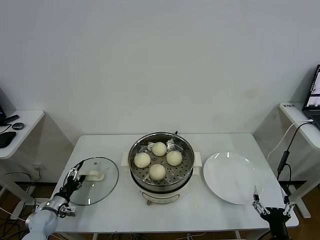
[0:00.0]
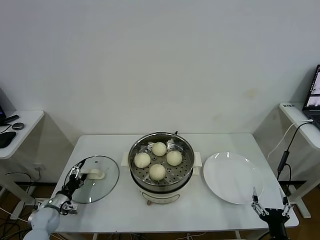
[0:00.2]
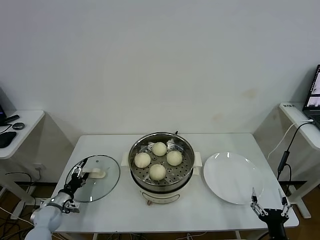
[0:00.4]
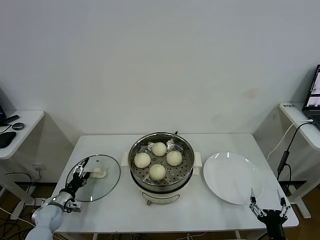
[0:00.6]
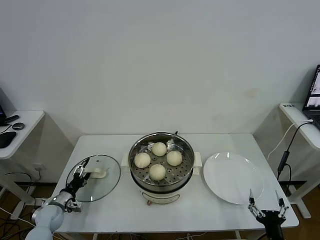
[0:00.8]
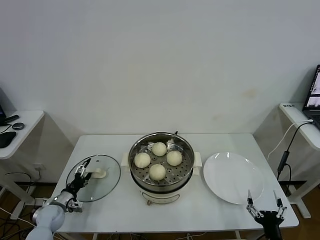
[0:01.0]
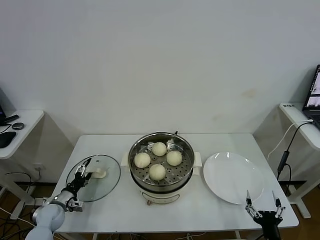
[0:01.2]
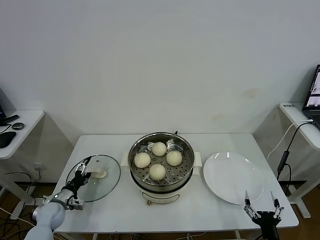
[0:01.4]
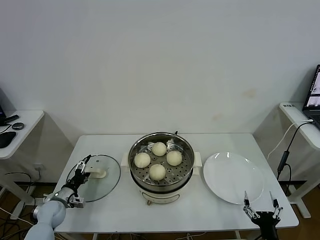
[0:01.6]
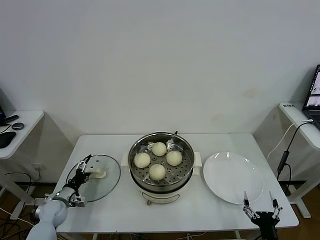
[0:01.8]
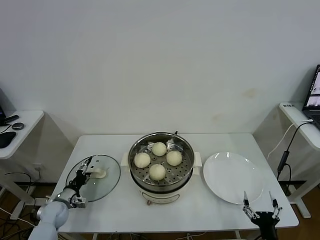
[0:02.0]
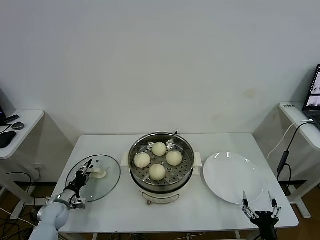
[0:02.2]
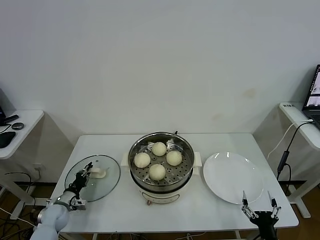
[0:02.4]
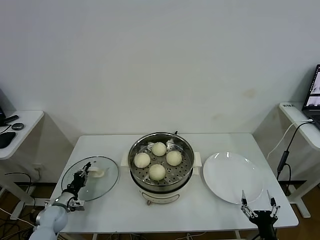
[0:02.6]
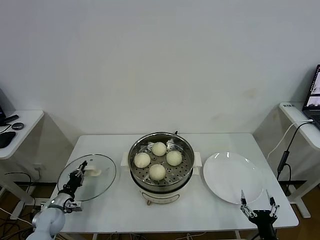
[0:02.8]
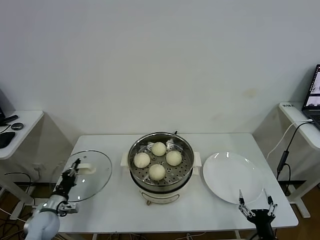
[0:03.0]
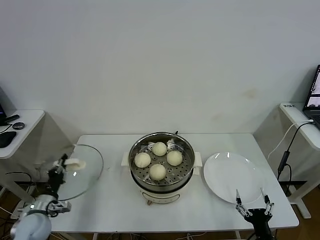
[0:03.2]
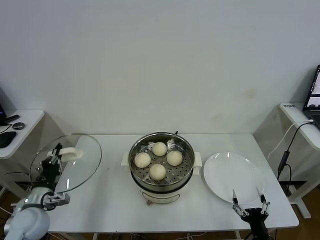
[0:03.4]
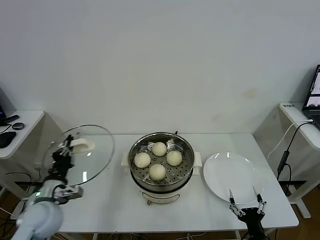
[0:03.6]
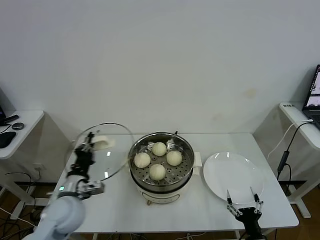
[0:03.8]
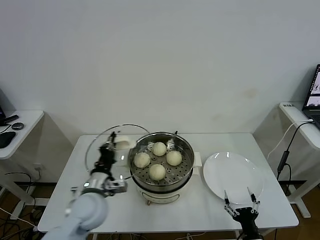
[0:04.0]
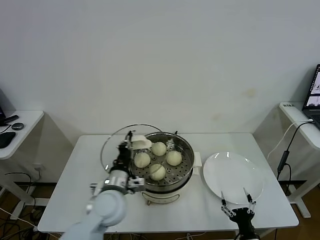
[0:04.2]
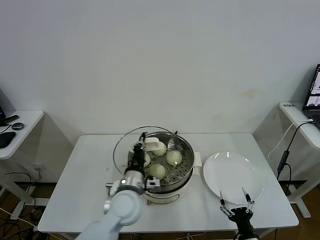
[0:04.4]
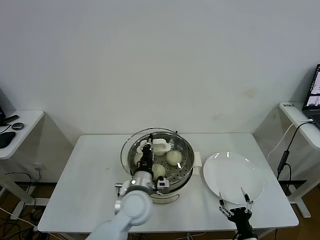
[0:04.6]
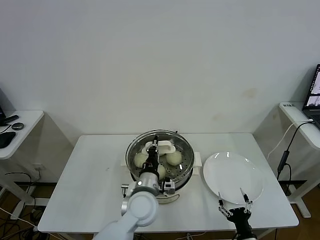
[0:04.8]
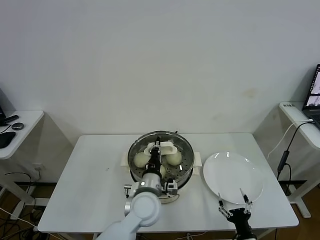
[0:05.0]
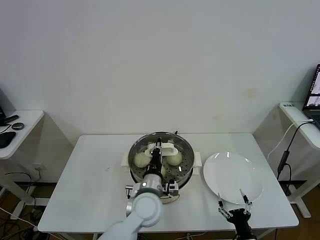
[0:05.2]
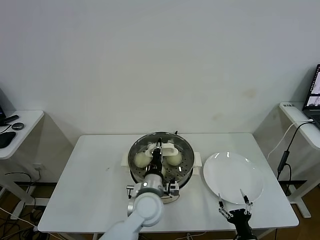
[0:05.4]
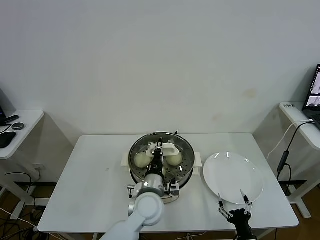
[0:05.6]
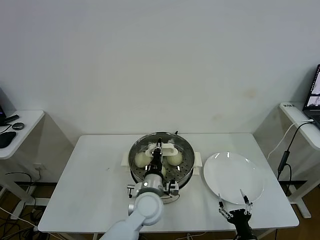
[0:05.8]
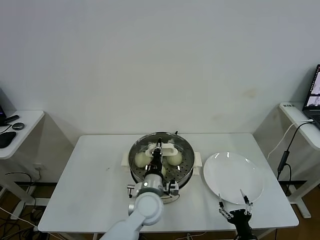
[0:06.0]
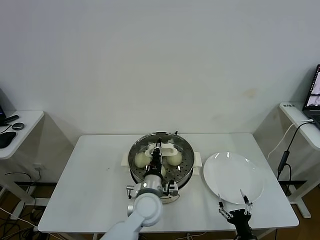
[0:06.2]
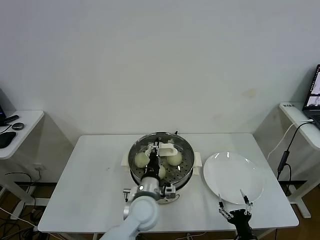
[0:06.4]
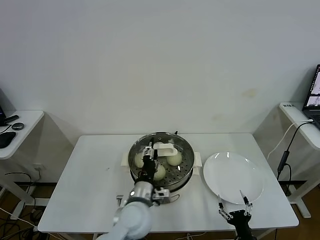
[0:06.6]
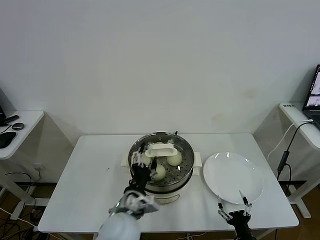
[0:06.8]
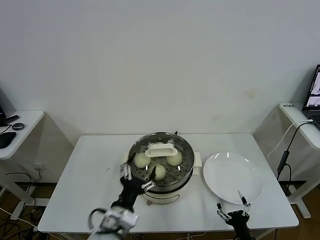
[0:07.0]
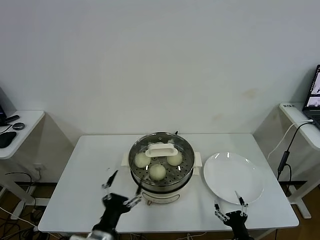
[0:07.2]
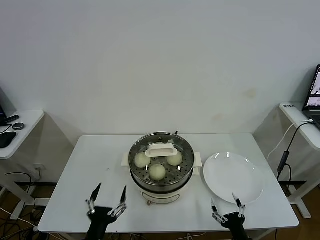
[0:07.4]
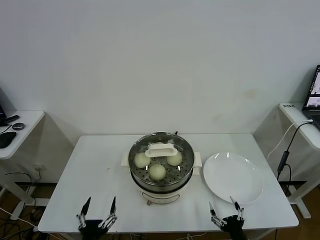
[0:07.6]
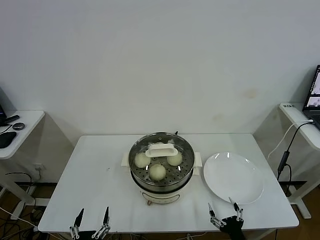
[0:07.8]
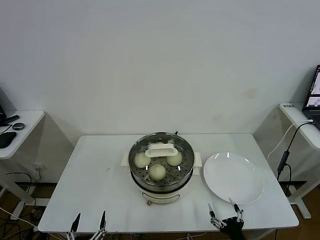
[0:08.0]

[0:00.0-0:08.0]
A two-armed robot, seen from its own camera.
Task of the whole recording: take steamed baozi put them in steamer.
Step, 0:00.0 to 0:02.6: Grasp the pot lid with left gripper.
Step, 0:02.8 to 0:06.8: Place the pot lid on the steamer with left gripper.
0:00.0 to 0:01.6: The grippers stay close to where they were, moving slightly.
0:01.6 to 0:03.2: The left gripper shifts about 10 cm upward and backward, and closes its fingers.
0:03.2 to 0:04.8: The right gripper ends up about 5 cm from where it was; the left gripper goes roughly 35 cm to the right.
0:04.8 to 0:06.4: The grippers make only small movements.
0:06.4 to 0:08.0: The left gripper heads backward and to the left, covering about 30 cm, and opens up.

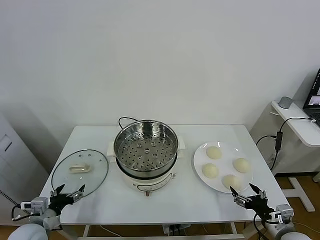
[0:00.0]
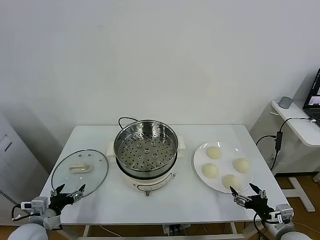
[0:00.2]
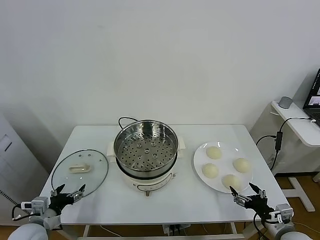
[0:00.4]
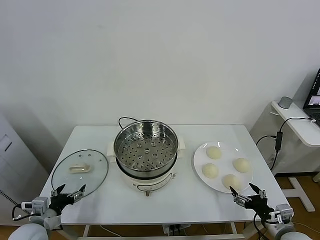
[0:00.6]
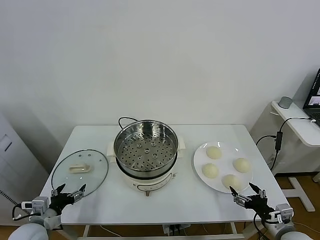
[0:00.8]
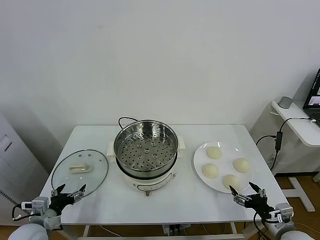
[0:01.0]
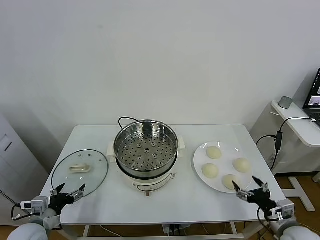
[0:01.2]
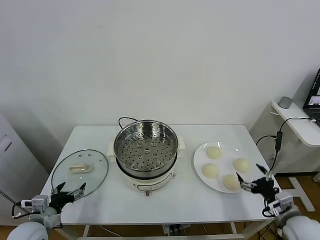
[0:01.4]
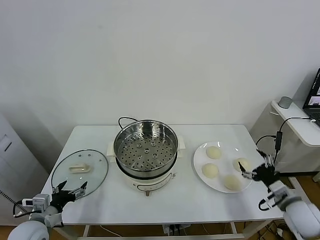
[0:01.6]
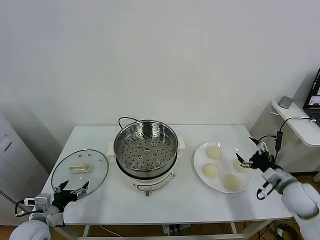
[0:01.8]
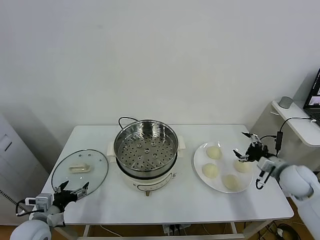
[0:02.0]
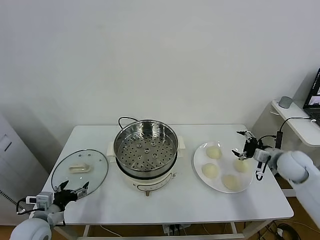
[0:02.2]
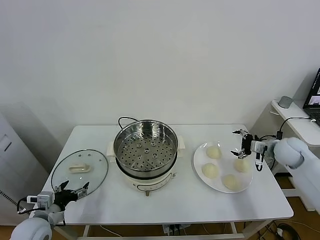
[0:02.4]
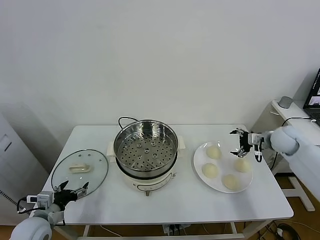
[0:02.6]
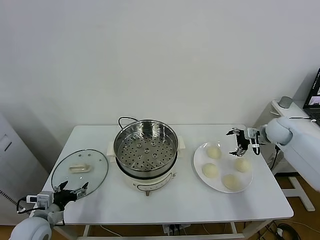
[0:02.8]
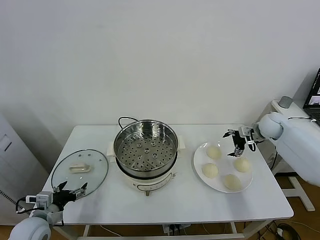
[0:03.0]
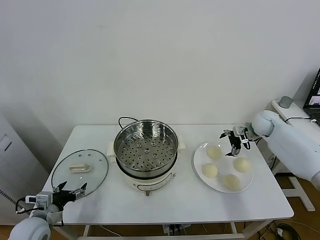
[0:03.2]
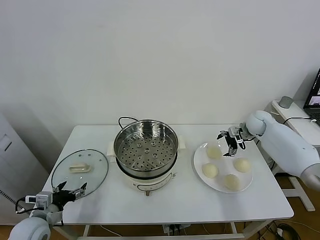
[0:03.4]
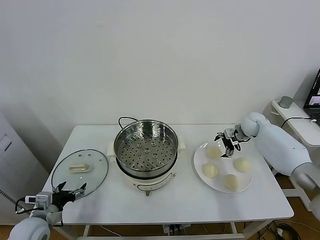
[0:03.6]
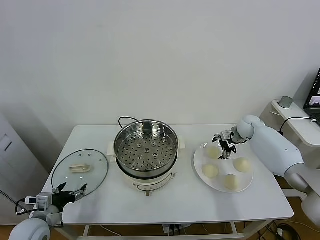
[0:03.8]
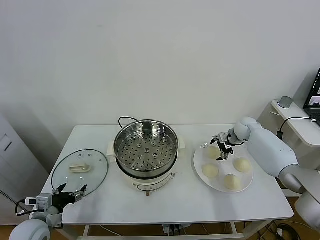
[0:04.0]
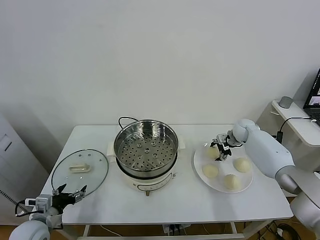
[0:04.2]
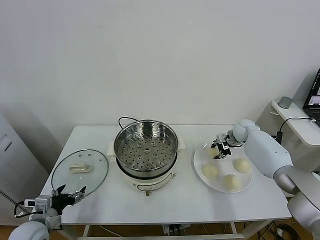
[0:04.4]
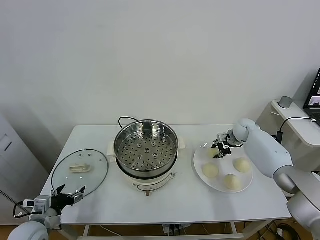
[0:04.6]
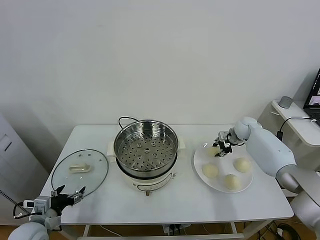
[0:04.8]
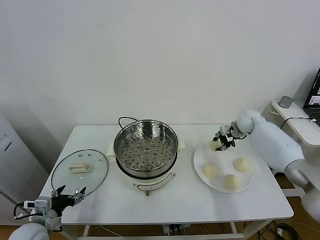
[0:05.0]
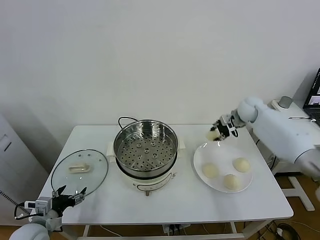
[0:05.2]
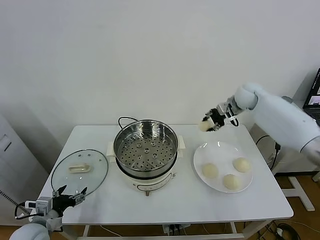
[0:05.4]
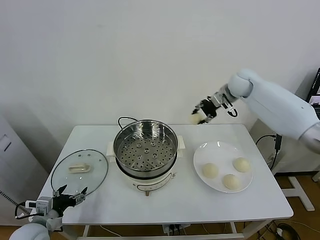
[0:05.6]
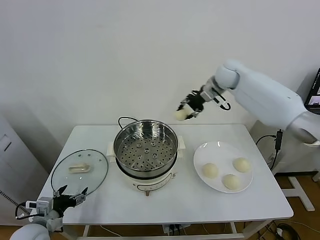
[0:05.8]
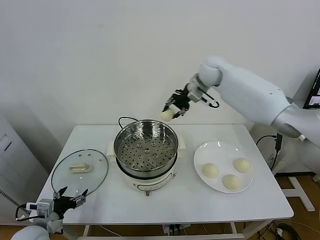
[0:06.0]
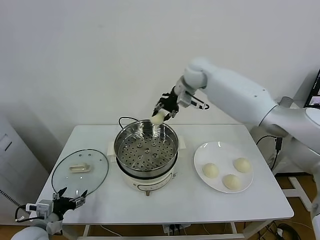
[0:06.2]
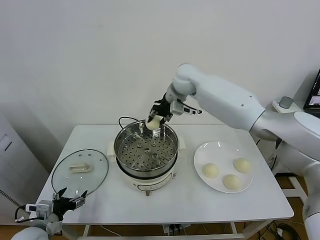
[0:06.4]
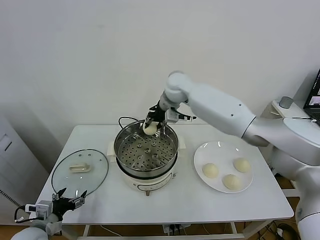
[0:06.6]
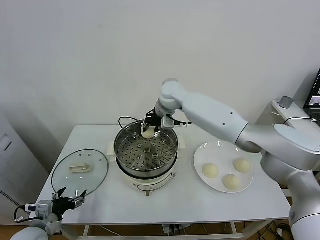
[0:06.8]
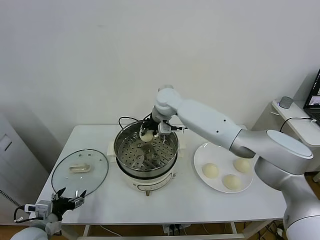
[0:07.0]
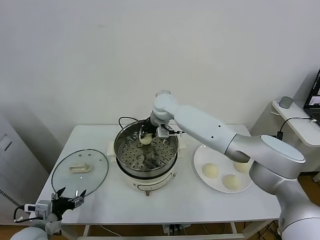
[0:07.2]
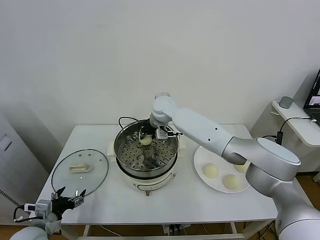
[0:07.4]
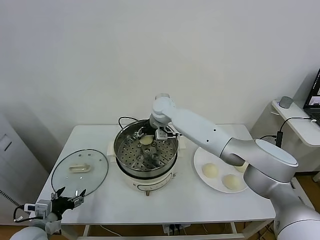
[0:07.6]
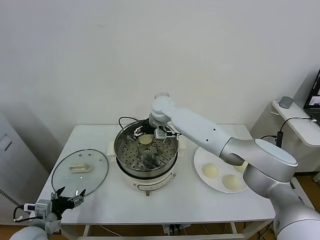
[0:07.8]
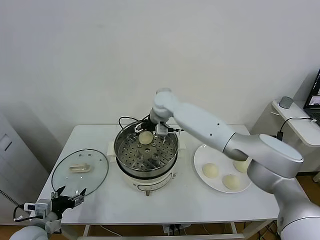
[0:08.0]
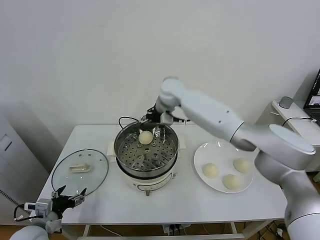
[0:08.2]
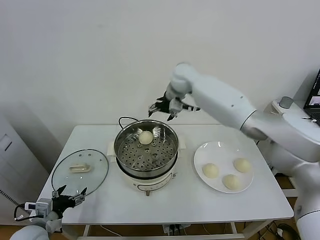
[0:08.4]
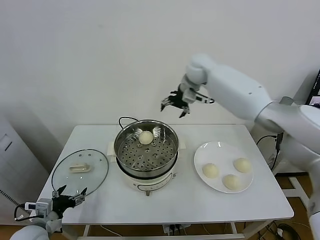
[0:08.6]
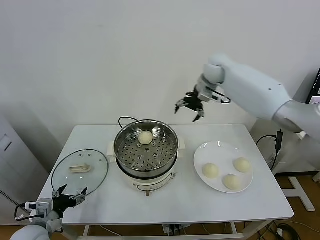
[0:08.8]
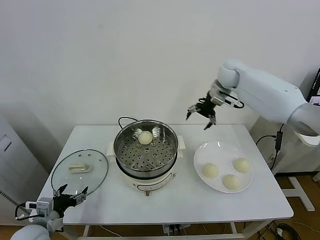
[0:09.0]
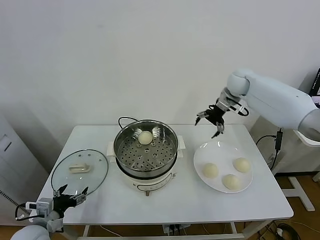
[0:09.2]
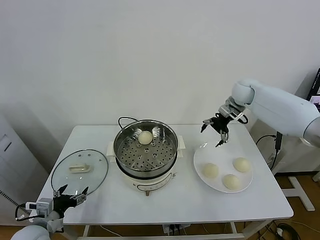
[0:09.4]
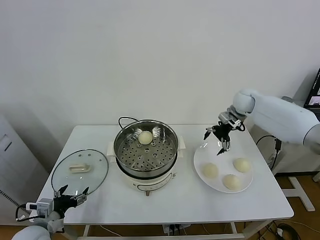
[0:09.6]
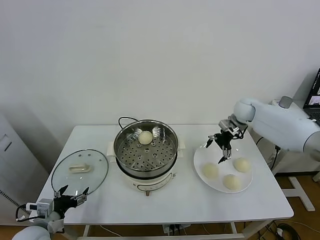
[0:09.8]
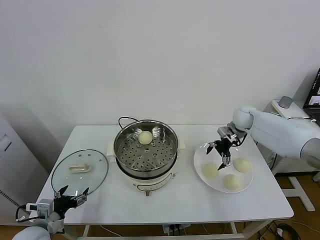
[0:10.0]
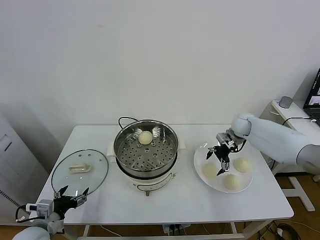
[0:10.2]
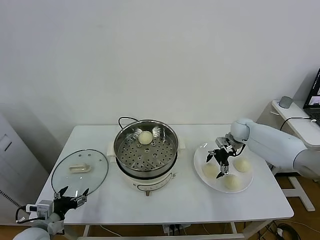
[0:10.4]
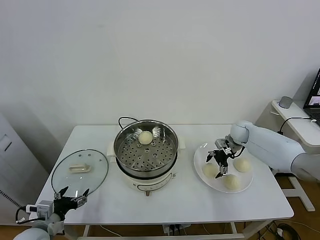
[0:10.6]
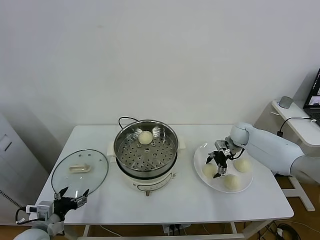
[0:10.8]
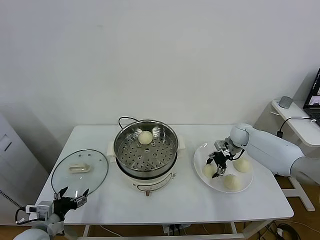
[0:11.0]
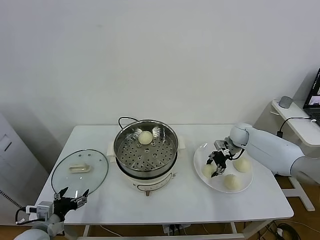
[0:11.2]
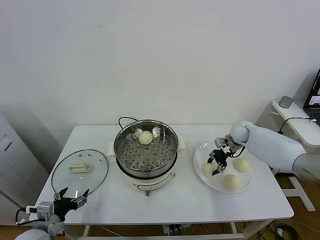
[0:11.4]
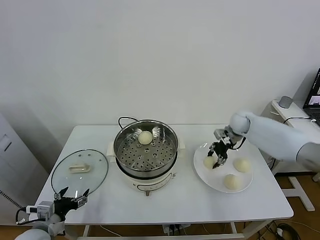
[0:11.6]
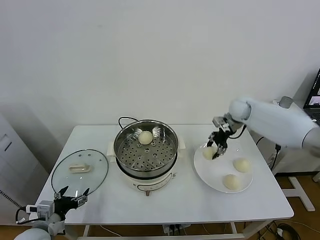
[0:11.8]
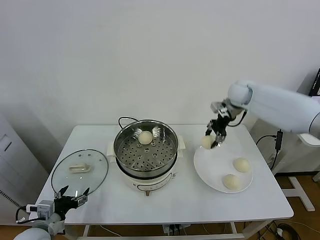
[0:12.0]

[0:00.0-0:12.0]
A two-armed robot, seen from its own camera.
Task of the whole recording: take steamed baozi put them in steamer.
Step, 0:00.0 to 0:04.6: Grasp the baozi in the plate with right gripper.
Step, 0:04.8 to 0:07.8: Place the baozi on the steamer with right gripper.
Step, 0:08.0 to 0:11.2: Grasp the baozi in the plate with right gripper.
0:01.6 to 0:03.0: The right gripper goes about 25 cm forward.
0:03.0 to 0:04.4: The right gripper goes about 10 cm downward, and closes its fingers.
0:04.4 to 0:06.0: The right gripper is displaced upward and to the left by approximately 35 cm.
0:06.0 to 0:07.6: The right gripper shifts about 20 cm downward and to the left, and opens up.
0:07.6 to 0:09.0: The right gripper moves to the right, approximately 25 cm.
0:09.0 to 0:10.4: The right gripper heads downward, covering about 20 cm.
0:10.4 to 0:12.0: The right gripper shifts some 20 cm upward, and closes.

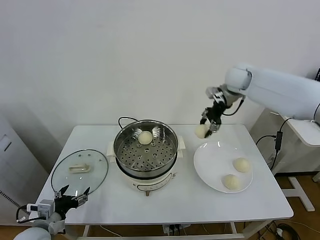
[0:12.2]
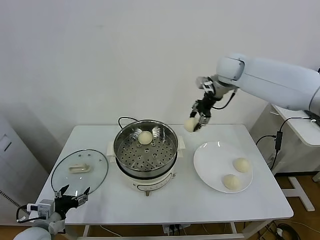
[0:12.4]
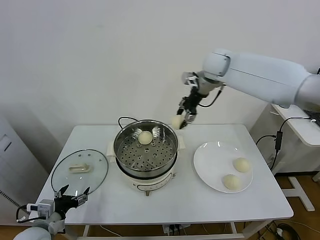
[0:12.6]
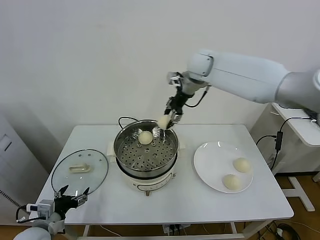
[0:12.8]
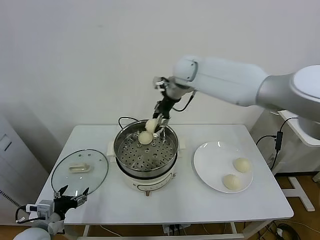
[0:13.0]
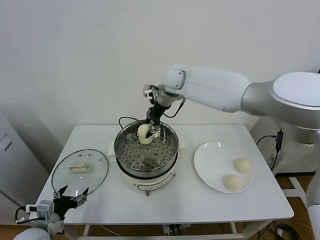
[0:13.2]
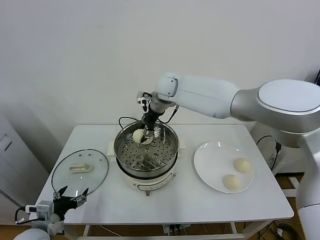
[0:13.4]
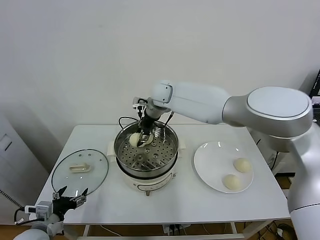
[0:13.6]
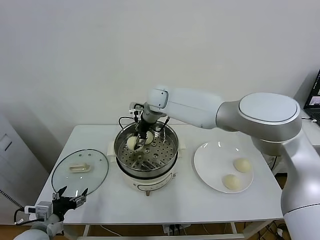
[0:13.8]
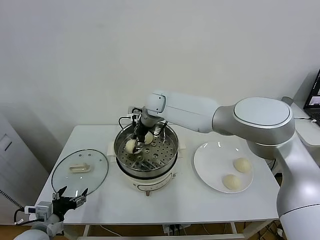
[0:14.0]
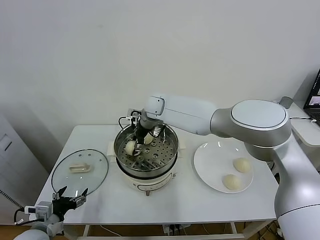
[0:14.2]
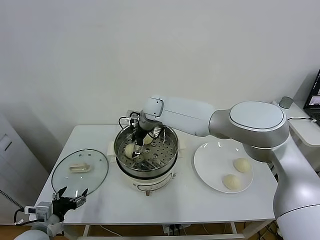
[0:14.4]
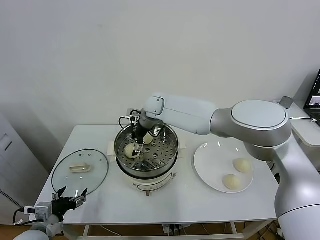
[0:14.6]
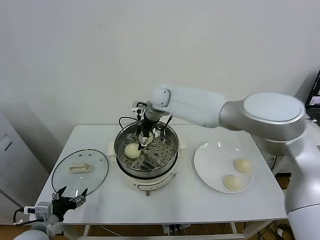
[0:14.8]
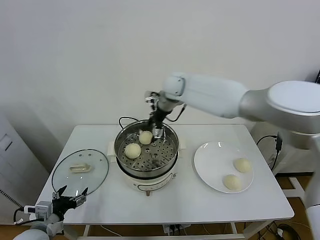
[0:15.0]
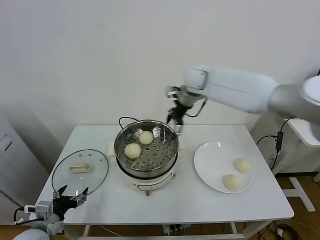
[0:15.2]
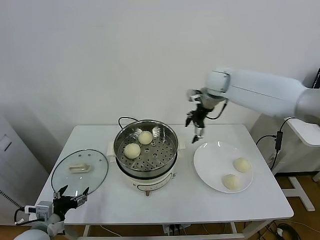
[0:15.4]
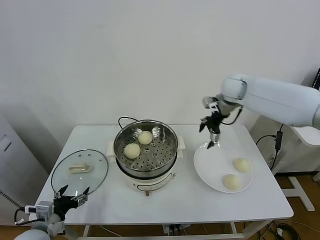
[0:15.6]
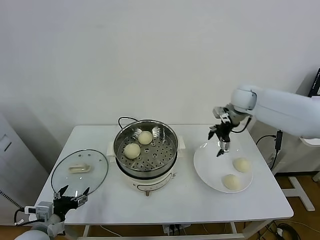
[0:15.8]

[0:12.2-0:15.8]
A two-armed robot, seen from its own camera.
Task of the whole recording: take steamed baozi put them in steamer.
Step, 0:12.2 to 0:14.6: Place the baozi on the steamer with right gripper.
0:12.2 to 0:14.0: The right gripper heads to the left and downward, covering approximately 30 cm.
0:14.0 to 0:15.8: The right gripper moves to the right, about 30 cm, and opens up.
